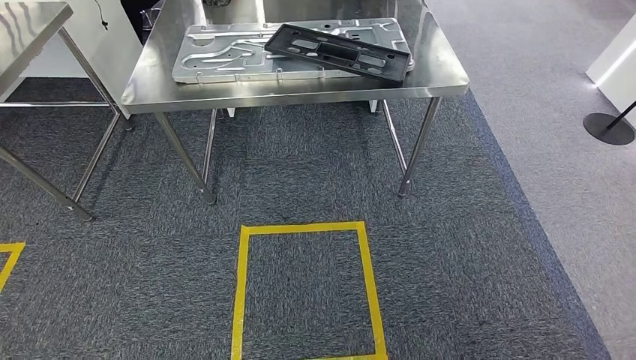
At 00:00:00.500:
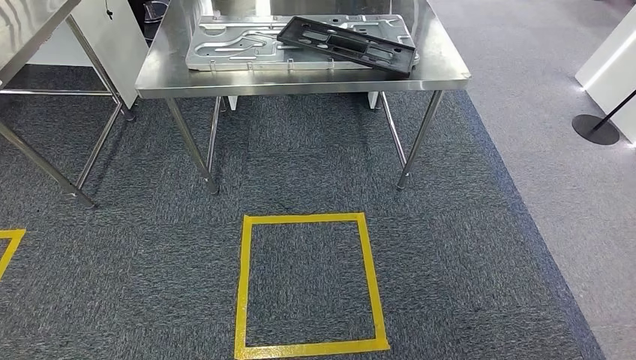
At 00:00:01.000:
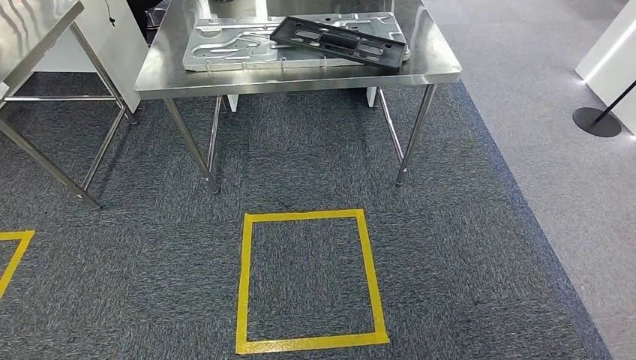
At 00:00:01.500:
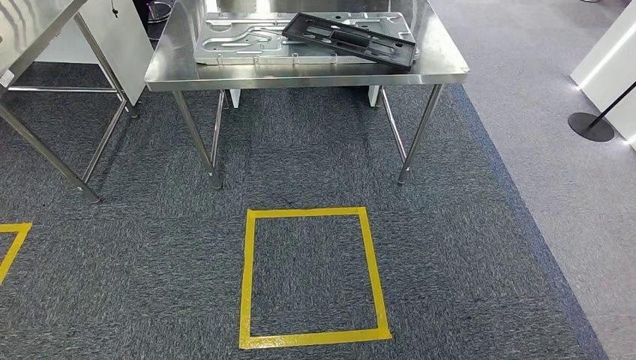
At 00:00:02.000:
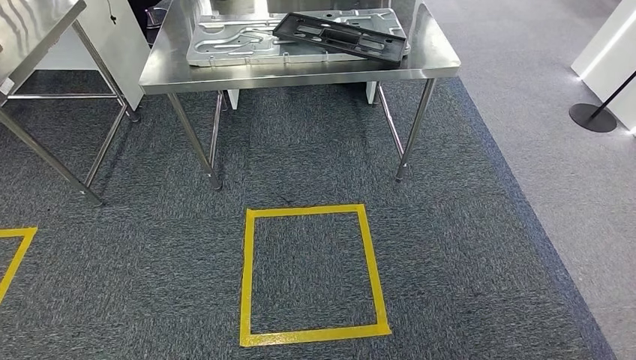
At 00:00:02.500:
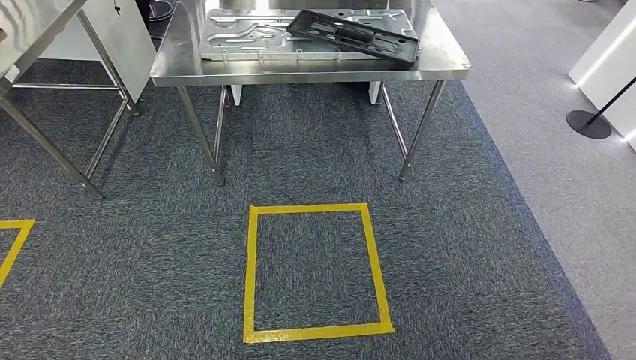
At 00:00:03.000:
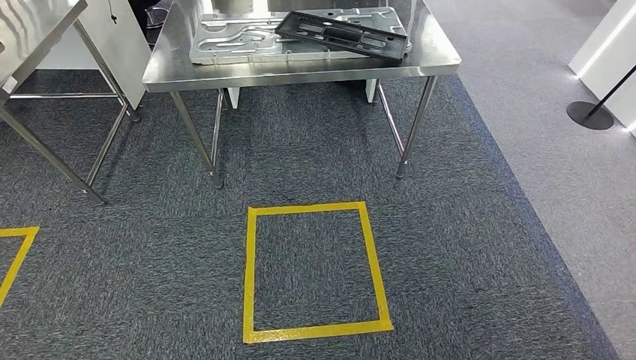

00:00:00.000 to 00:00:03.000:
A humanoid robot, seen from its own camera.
Step, 00:00:00.000 to 00:00:03.000: Return to the initial position at the shelf.
00:00:01.500 to 00:00:03.000: The left hand heads backward, covering some 5 cm.

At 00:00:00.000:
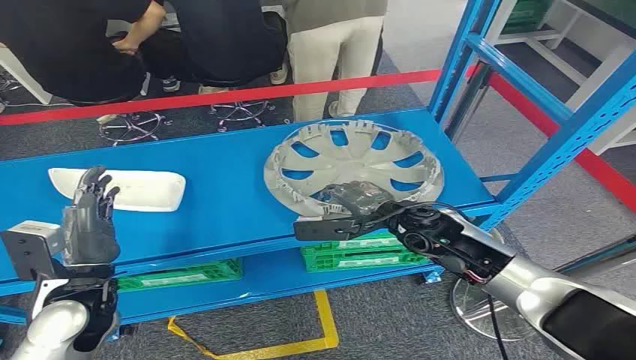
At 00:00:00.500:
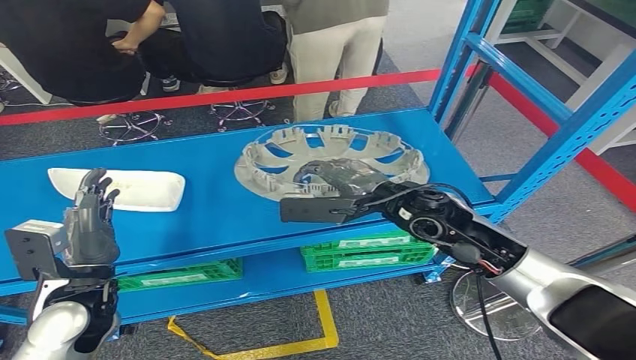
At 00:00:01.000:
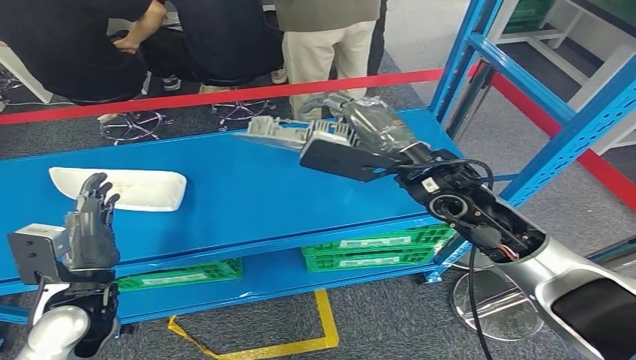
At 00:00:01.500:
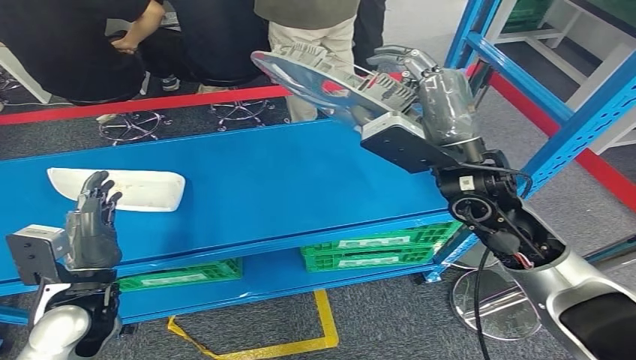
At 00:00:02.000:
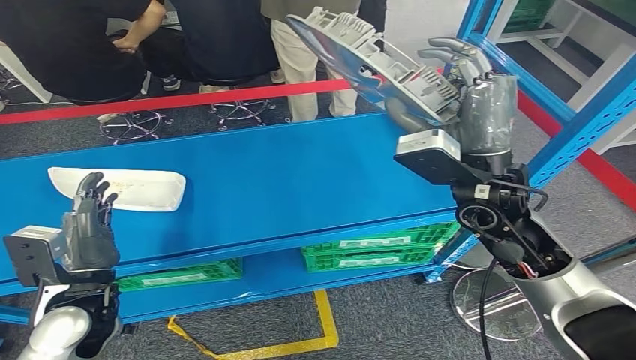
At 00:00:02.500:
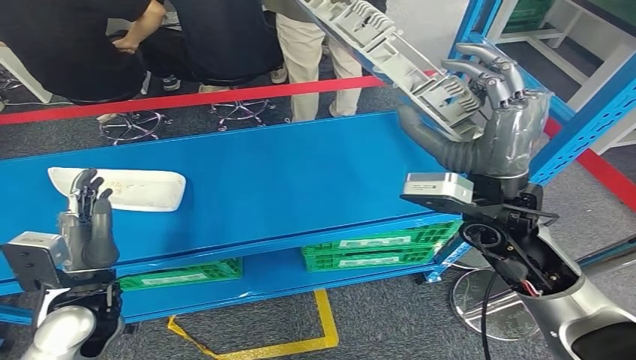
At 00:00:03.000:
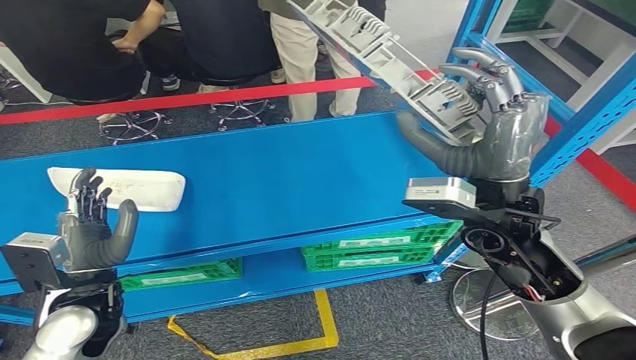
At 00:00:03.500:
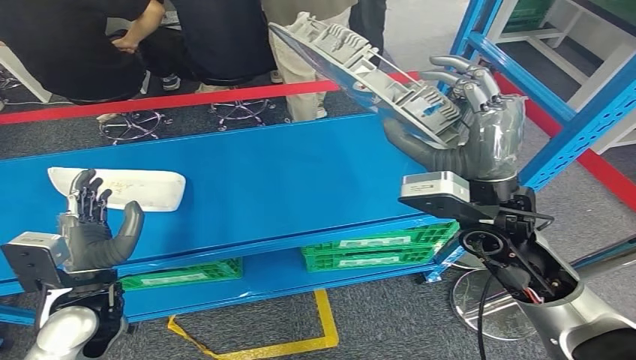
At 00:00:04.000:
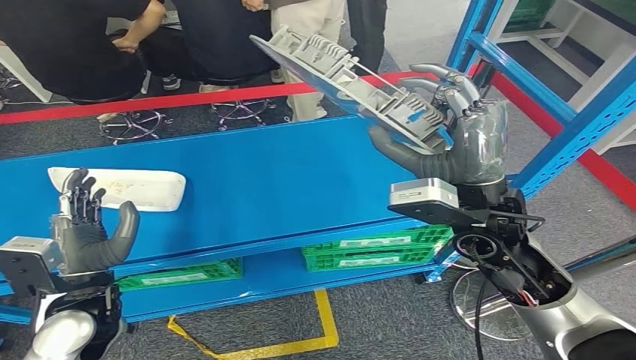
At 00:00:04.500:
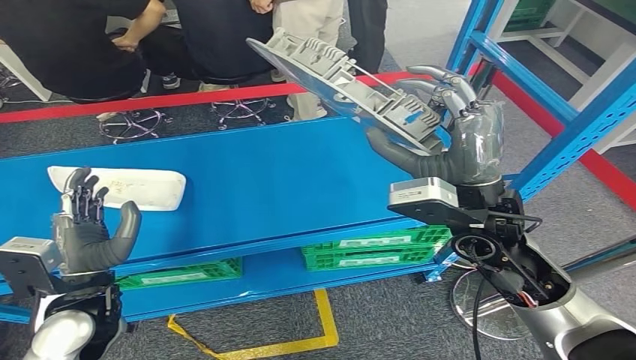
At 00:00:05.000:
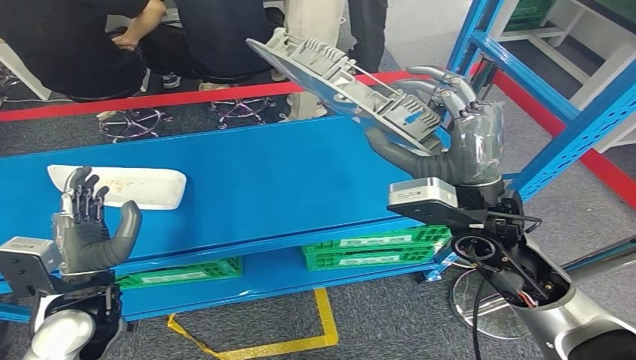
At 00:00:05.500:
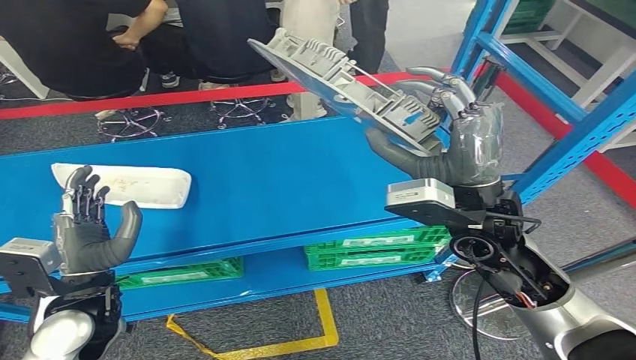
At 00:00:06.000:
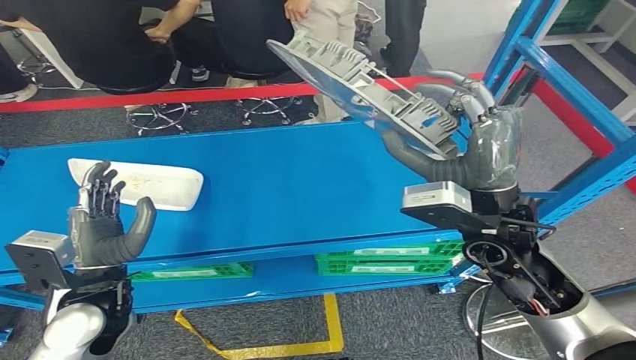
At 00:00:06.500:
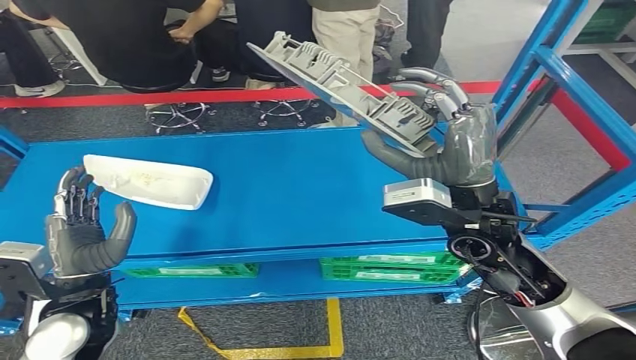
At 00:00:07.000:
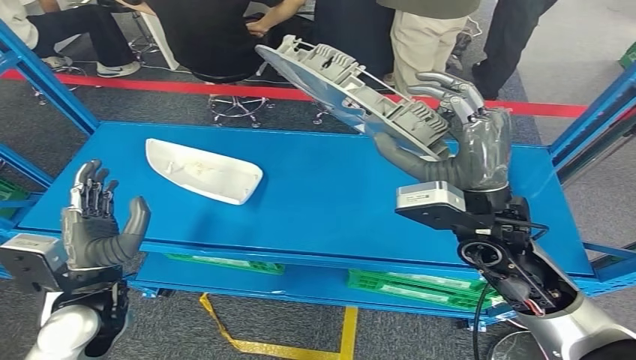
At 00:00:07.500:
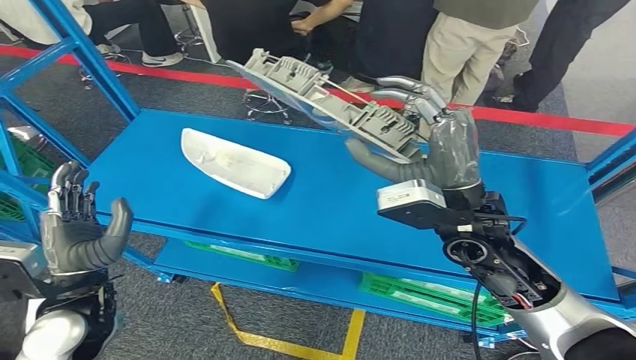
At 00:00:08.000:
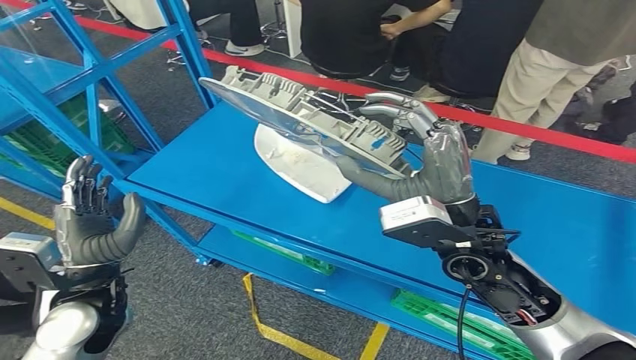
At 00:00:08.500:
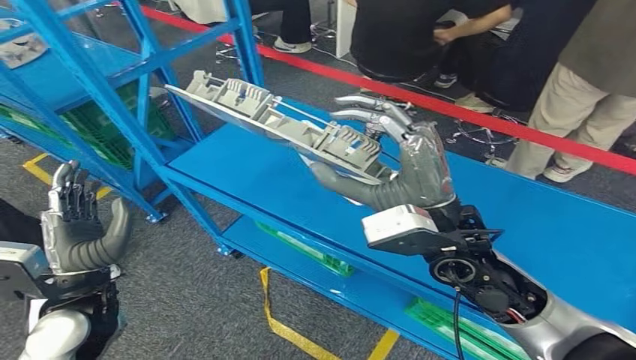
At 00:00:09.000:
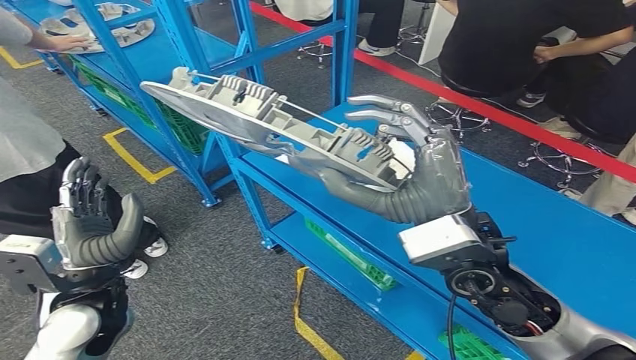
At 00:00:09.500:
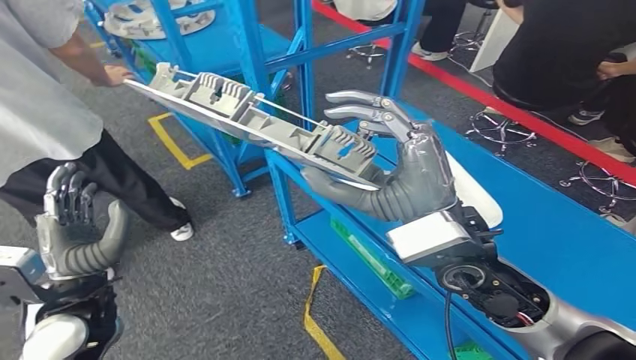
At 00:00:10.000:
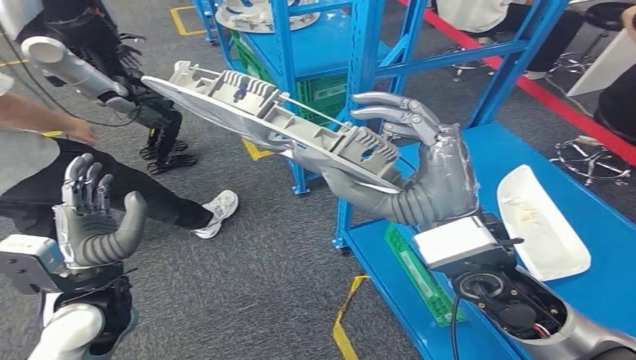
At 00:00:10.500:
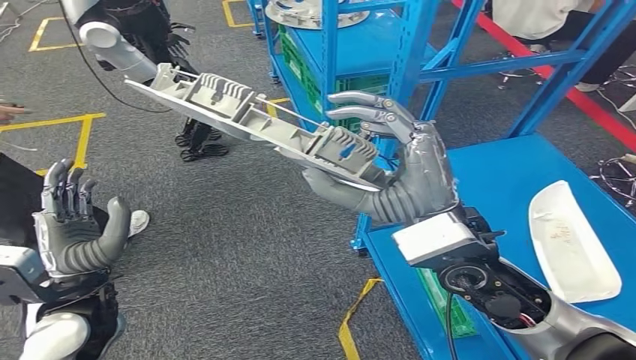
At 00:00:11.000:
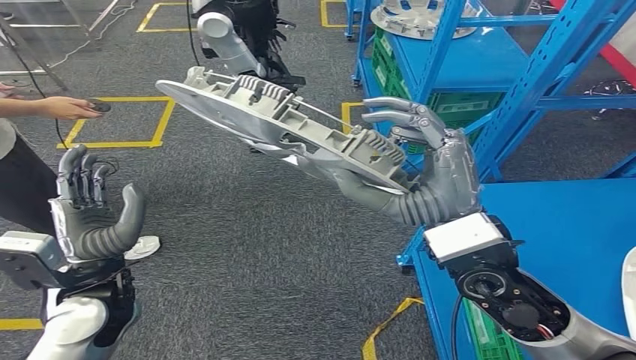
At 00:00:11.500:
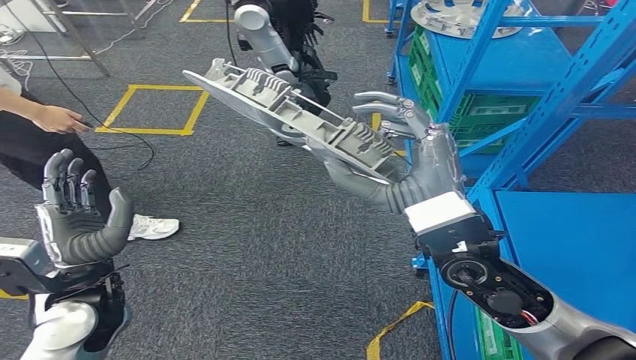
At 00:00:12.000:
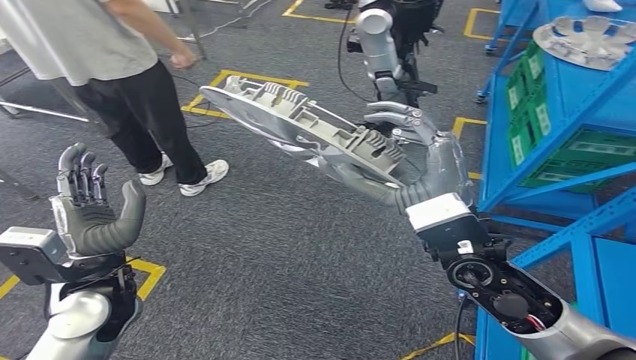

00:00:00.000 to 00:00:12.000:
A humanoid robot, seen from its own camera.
Step, 00:00:00.000 to 00:00:04.500: Pick up the small parts from the shelf.

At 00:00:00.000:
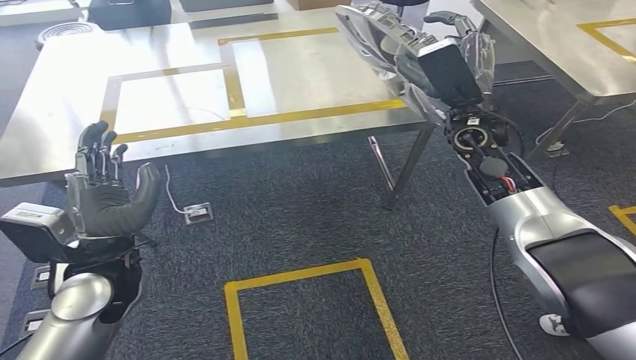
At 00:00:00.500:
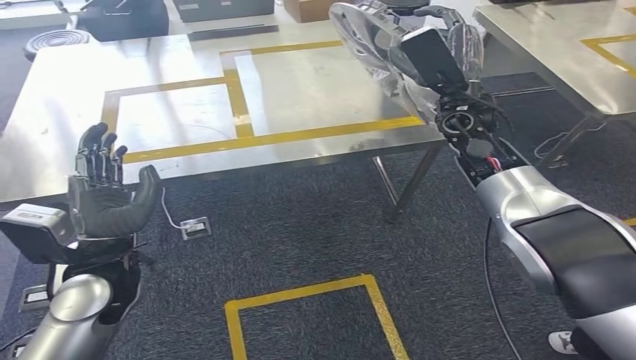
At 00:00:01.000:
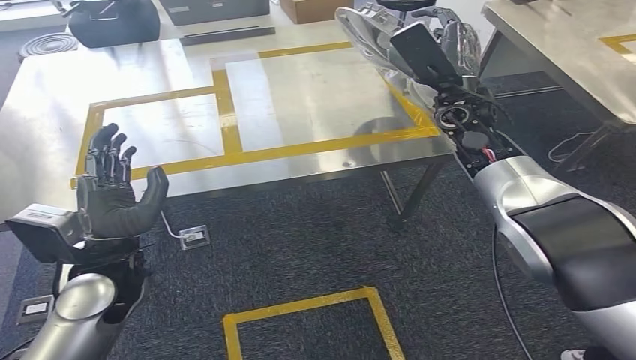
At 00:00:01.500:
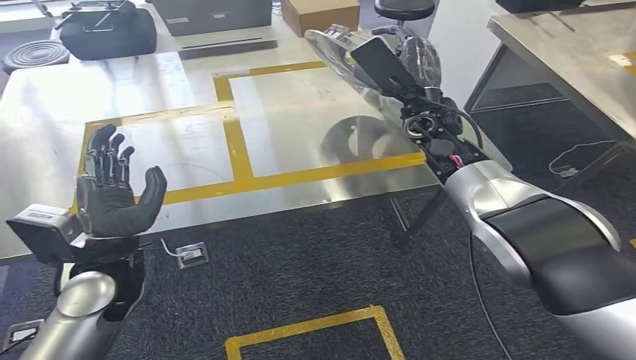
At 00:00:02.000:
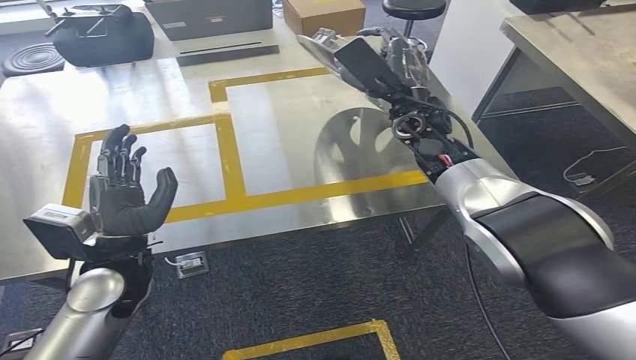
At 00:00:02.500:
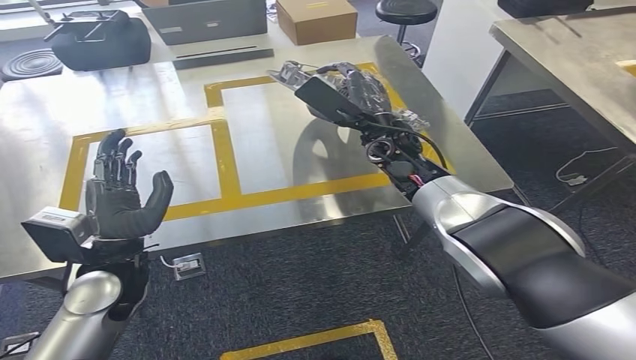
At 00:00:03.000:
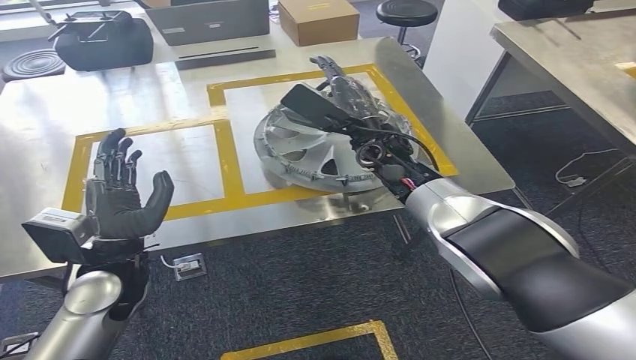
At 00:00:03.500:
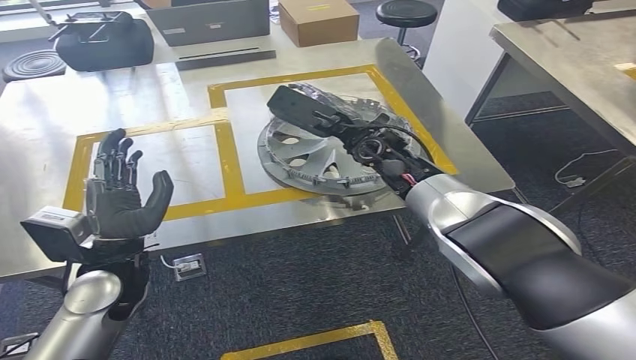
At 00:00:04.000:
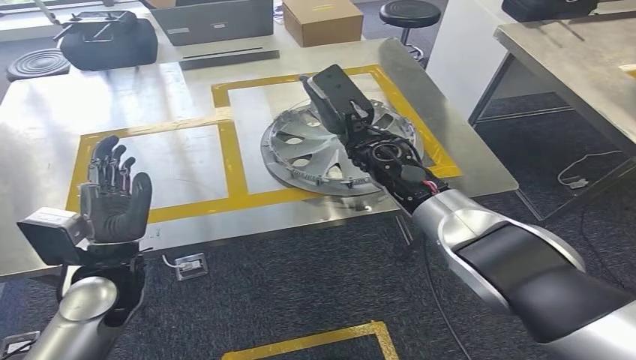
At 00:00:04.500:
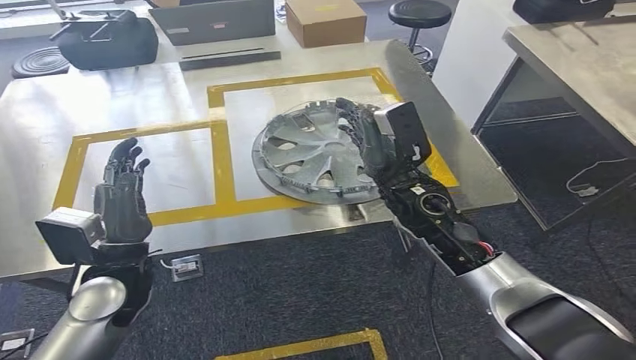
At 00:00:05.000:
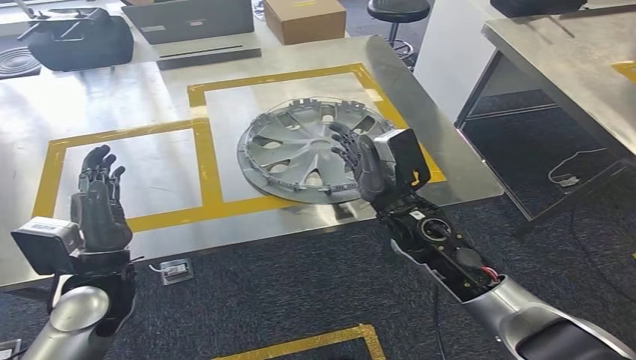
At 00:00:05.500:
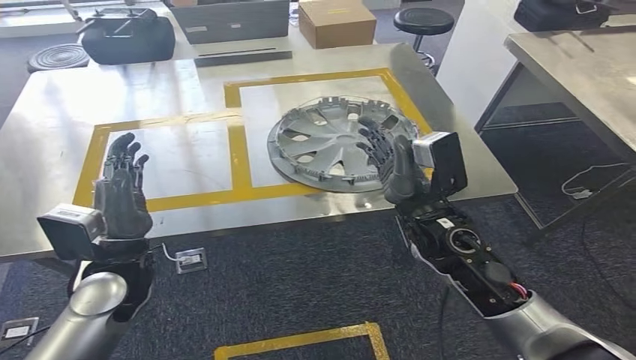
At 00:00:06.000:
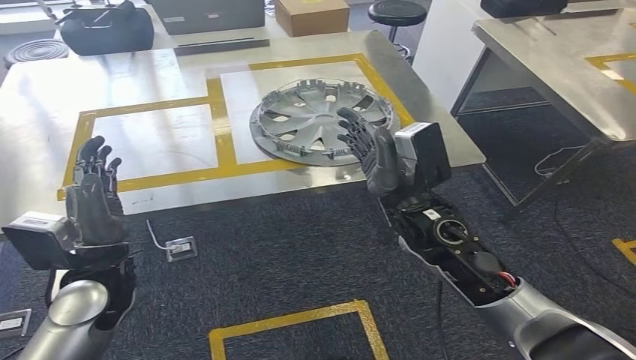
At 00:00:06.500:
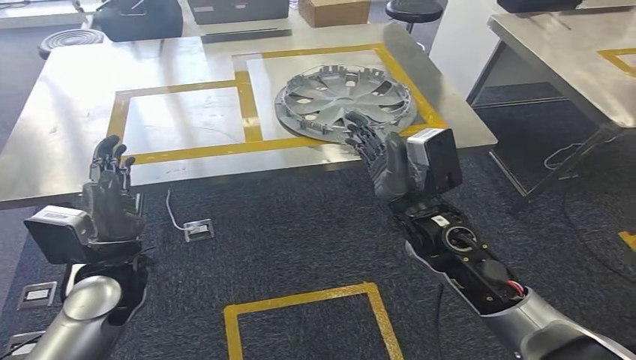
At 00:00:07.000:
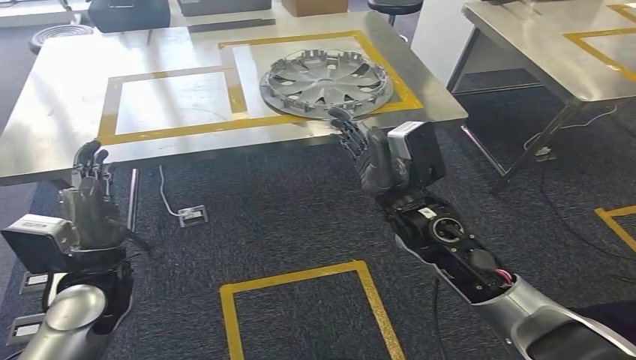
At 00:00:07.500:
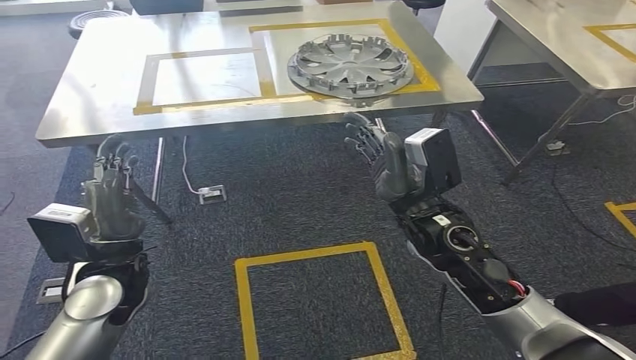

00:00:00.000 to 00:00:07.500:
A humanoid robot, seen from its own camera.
Step, 00:00:00.000 to 00:00:06.000: Insert the small parts into the corresponding slots on the workbench.
